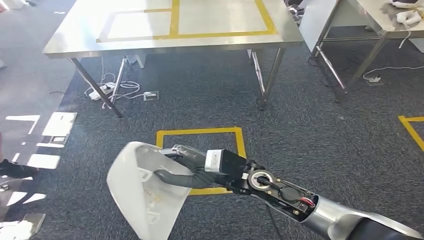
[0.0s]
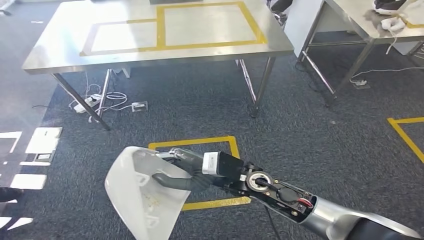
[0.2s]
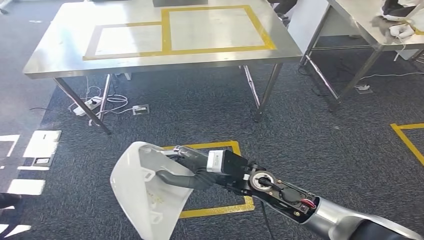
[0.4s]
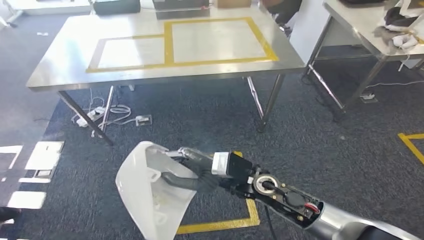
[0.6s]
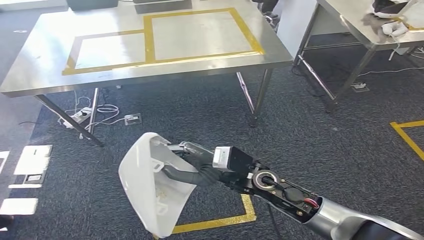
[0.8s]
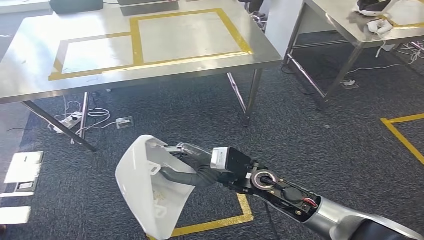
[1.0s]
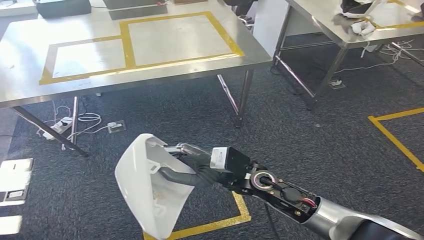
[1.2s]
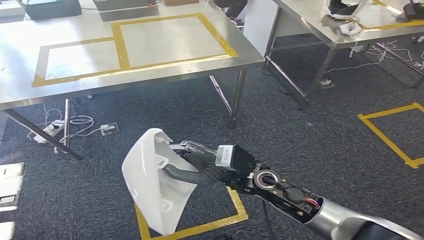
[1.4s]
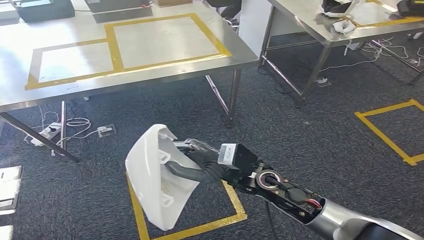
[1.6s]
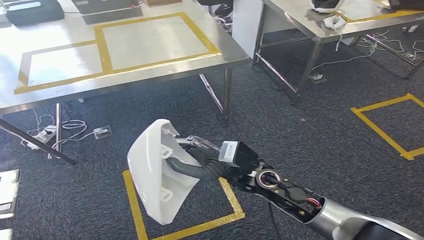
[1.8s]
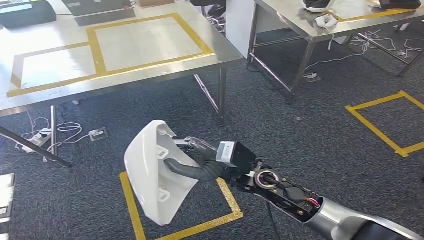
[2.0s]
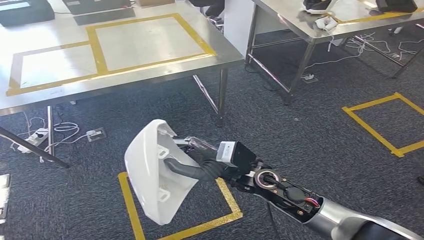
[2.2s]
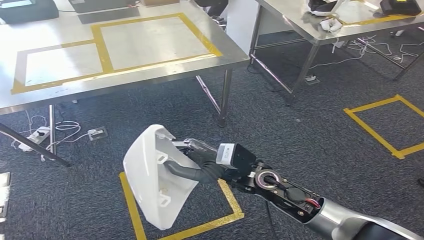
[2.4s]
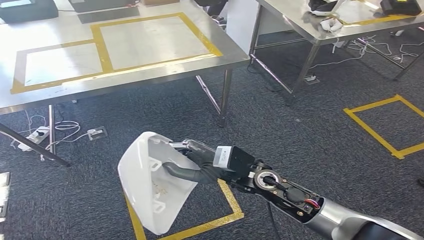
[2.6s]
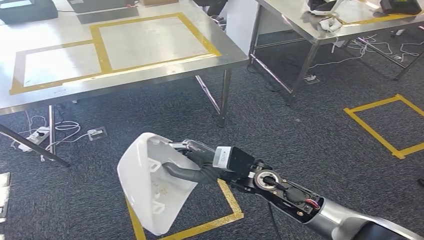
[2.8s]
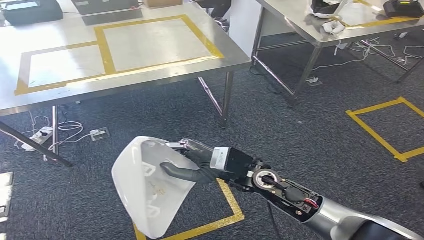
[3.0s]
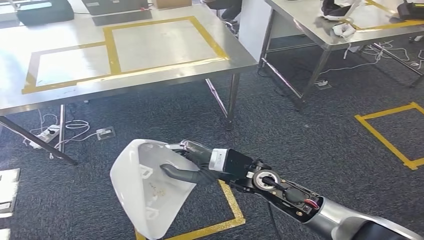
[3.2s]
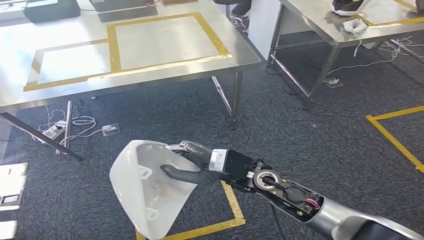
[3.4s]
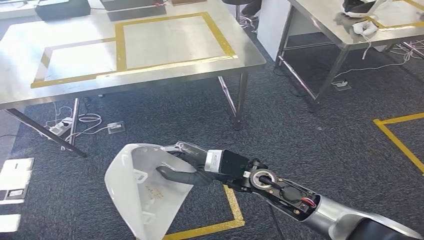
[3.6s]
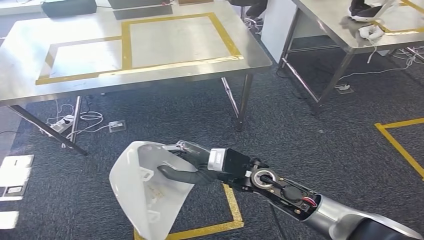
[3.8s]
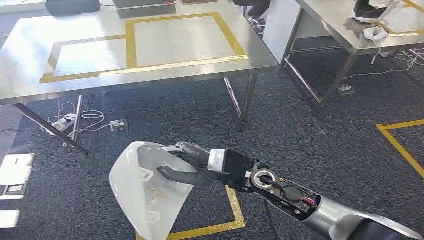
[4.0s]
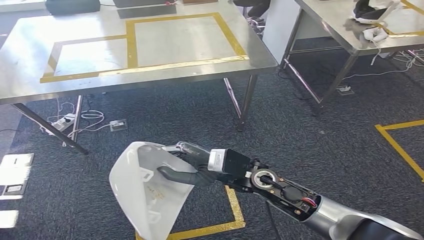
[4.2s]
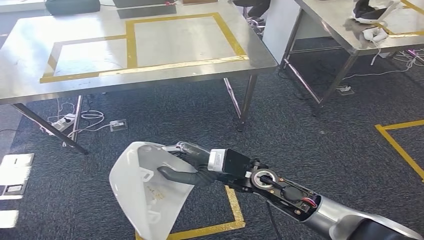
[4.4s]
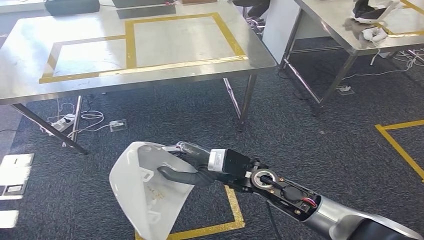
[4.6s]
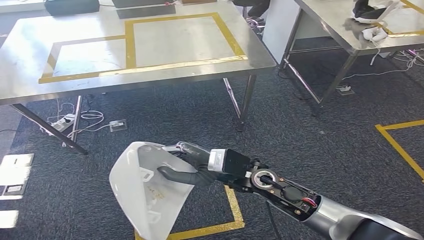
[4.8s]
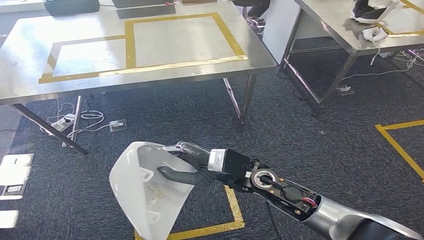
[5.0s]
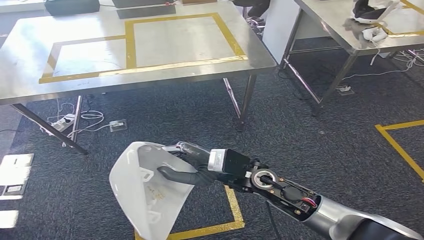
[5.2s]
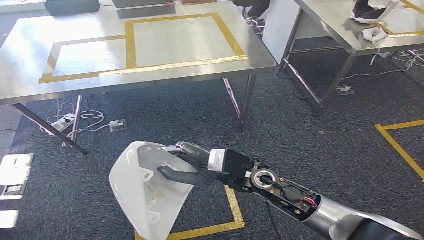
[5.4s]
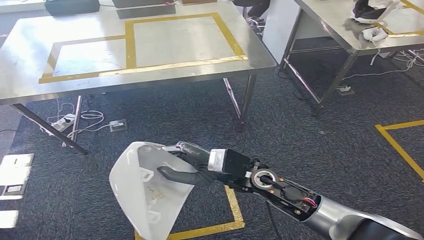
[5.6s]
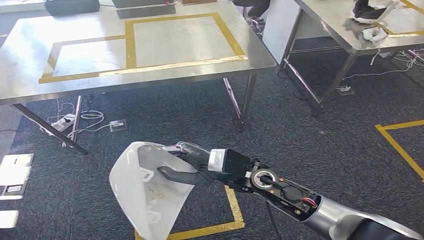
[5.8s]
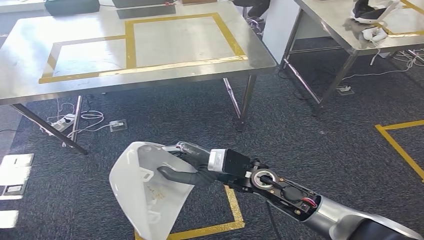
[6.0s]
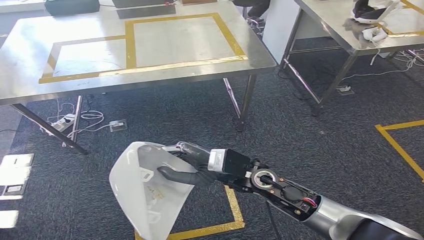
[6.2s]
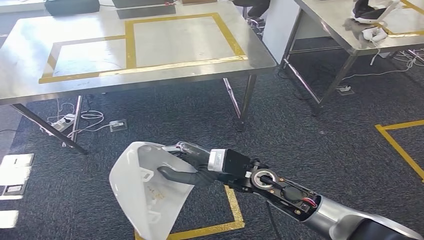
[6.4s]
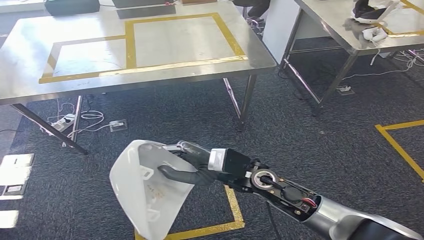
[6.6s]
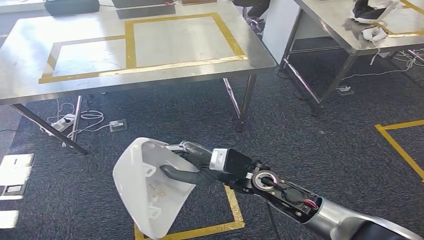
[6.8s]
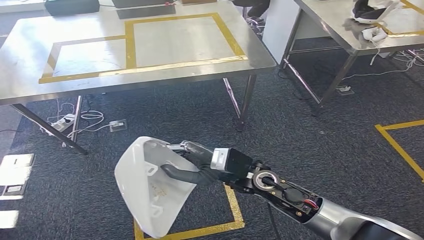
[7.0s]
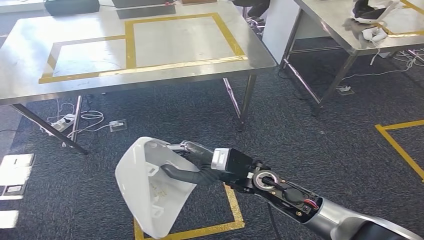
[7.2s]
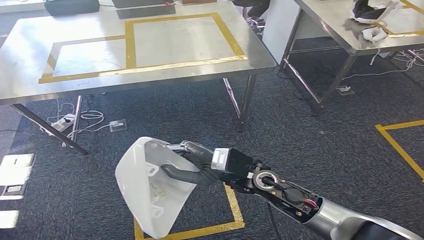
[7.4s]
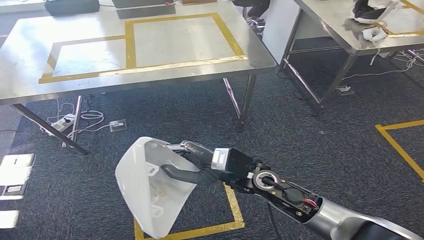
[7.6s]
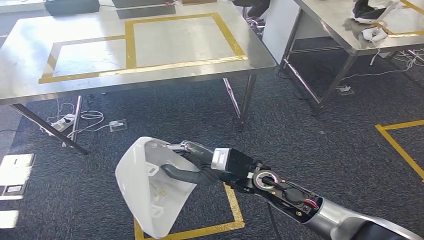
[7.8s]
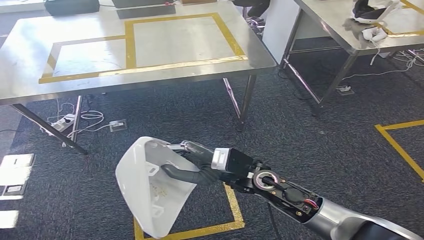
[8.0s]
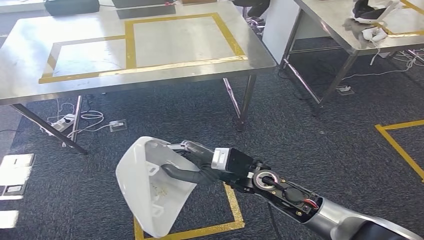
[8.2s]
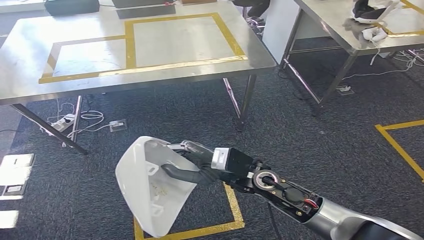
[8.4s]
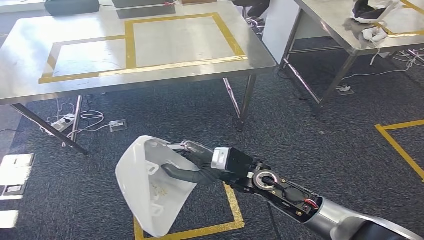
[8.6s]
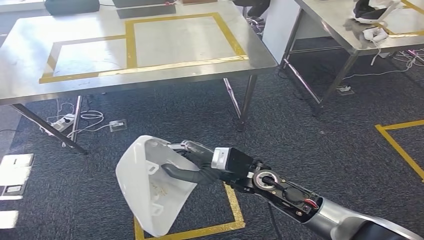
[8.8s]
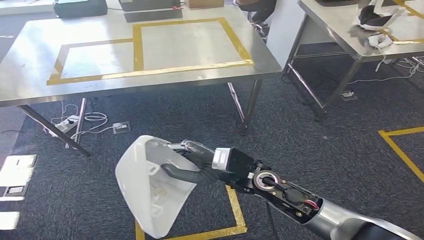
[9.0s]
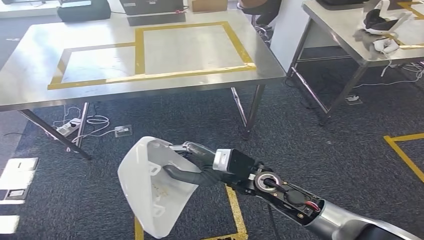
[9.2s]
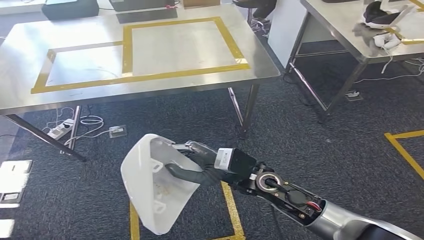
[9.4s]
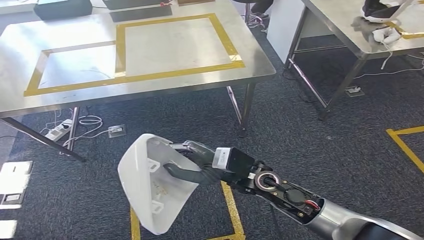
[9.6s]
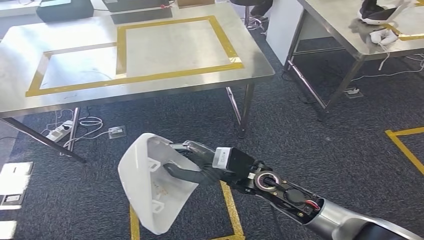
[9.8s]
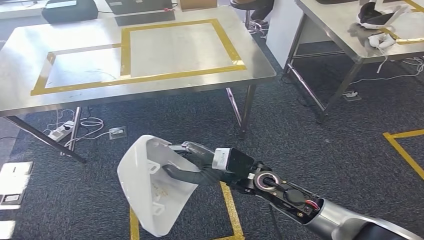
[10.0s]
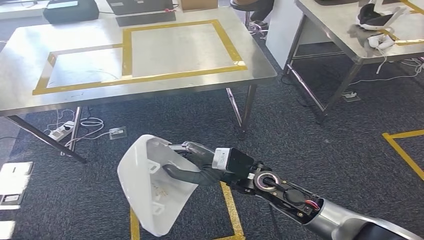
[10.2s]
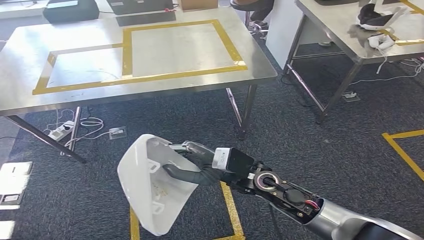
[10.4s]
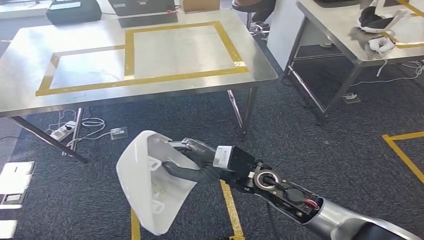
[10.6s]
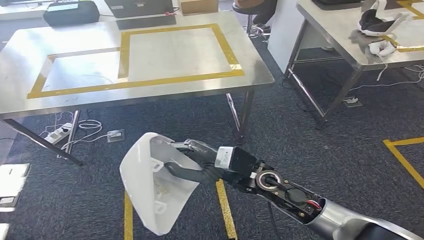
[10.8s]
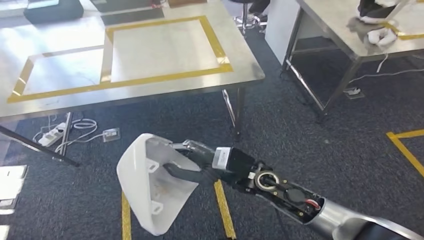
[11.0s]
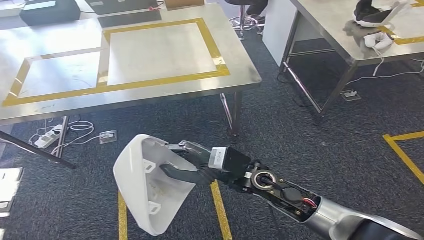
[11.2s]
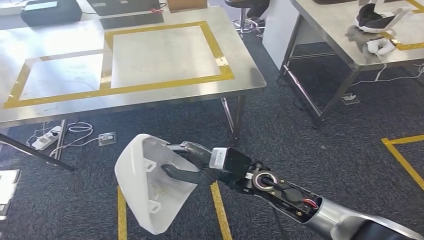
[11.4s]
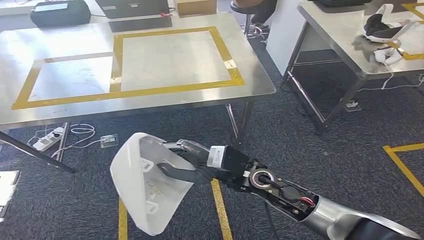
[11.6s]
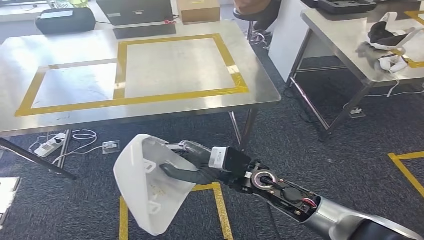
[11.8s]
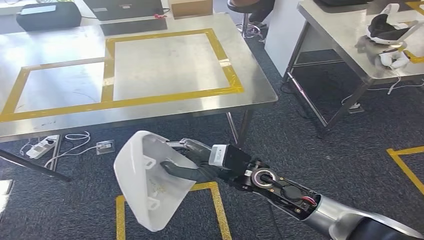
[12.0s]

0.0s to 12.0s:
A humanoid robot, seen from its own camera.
4.4s to 10.4s: The two hands keep their place.

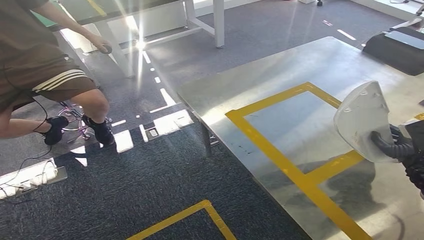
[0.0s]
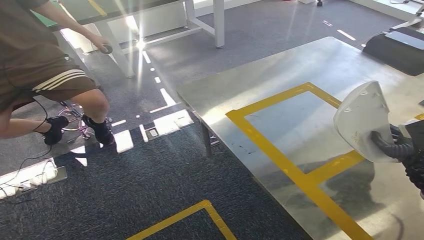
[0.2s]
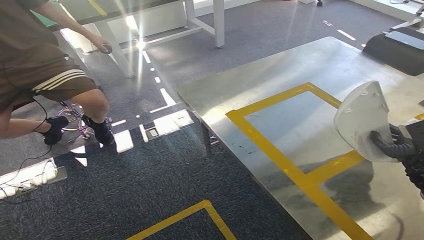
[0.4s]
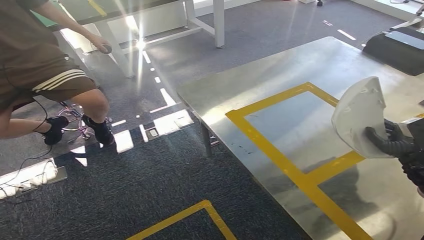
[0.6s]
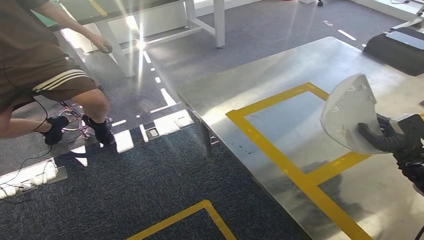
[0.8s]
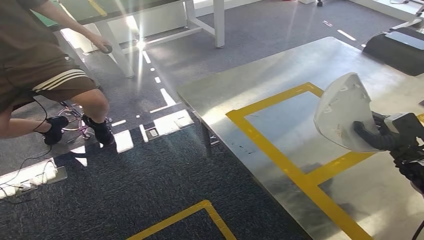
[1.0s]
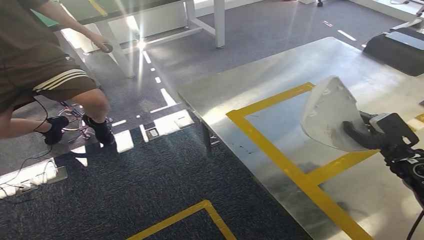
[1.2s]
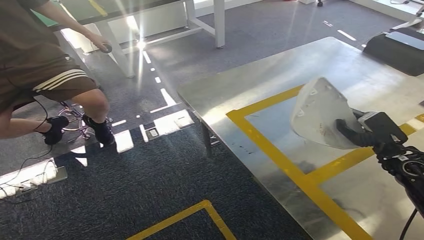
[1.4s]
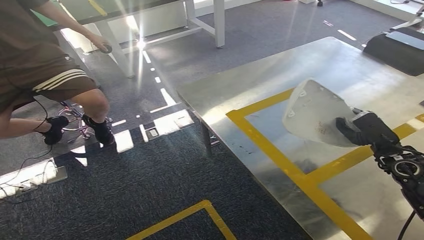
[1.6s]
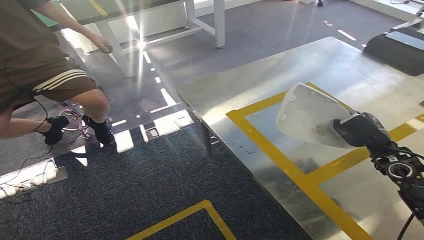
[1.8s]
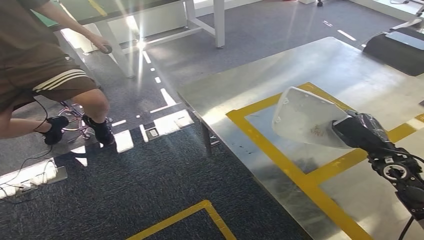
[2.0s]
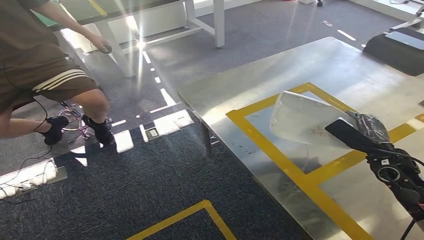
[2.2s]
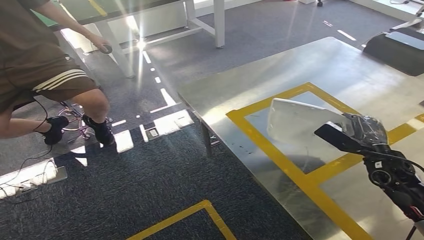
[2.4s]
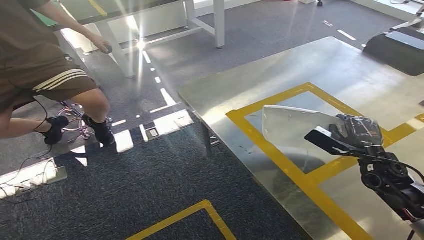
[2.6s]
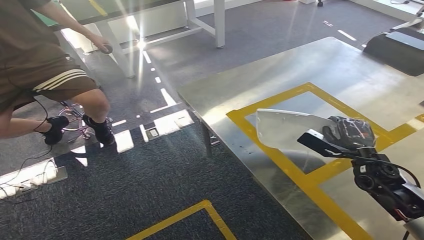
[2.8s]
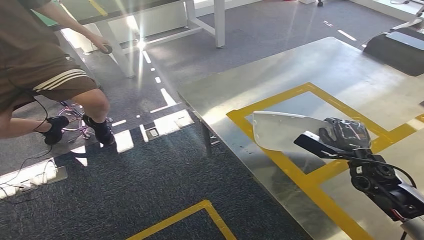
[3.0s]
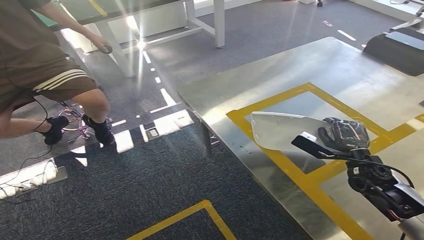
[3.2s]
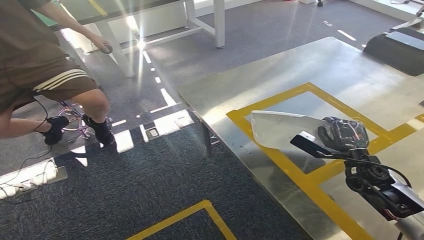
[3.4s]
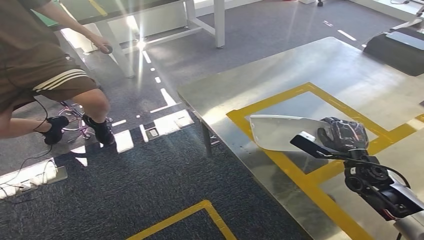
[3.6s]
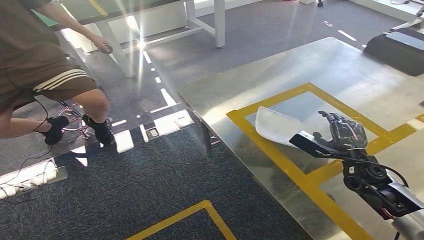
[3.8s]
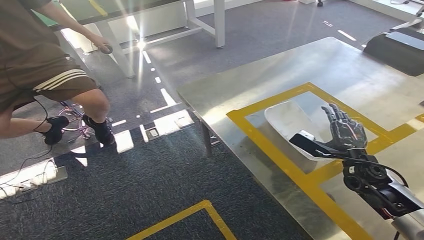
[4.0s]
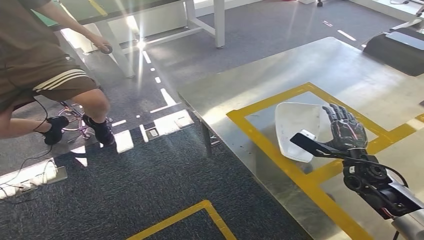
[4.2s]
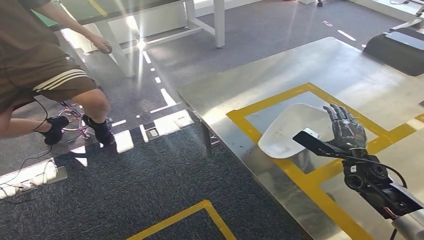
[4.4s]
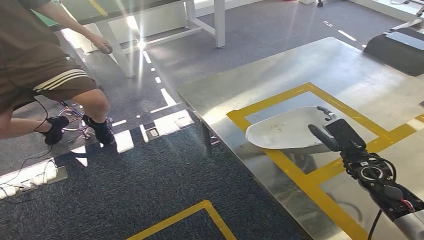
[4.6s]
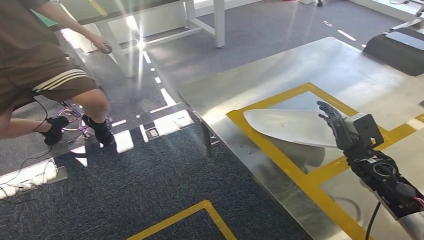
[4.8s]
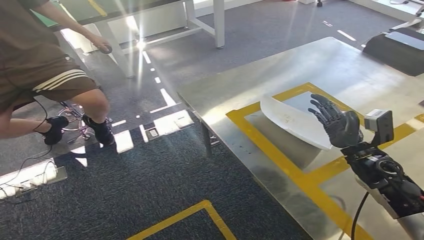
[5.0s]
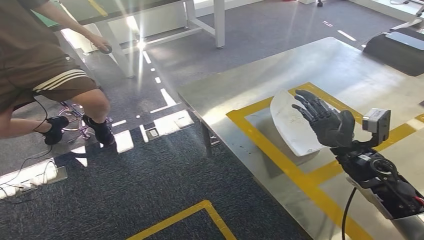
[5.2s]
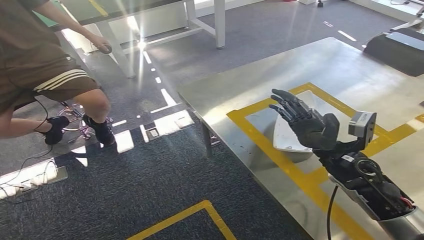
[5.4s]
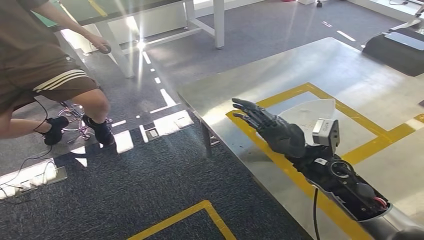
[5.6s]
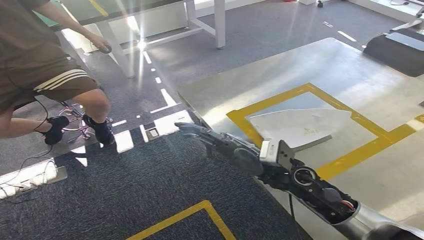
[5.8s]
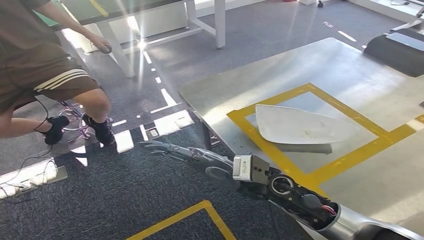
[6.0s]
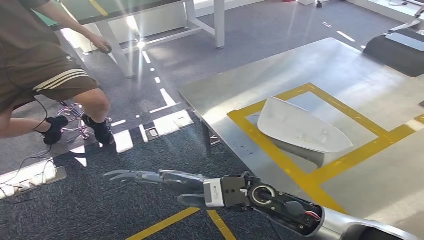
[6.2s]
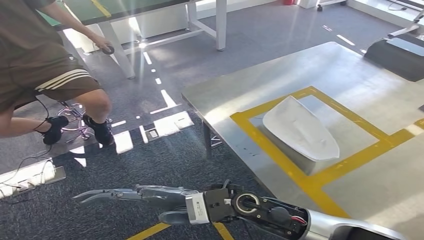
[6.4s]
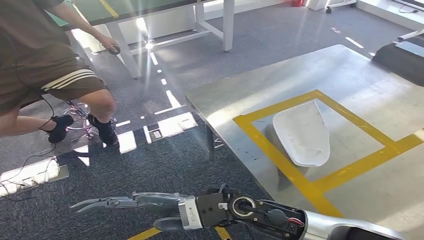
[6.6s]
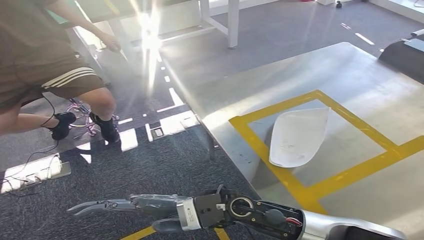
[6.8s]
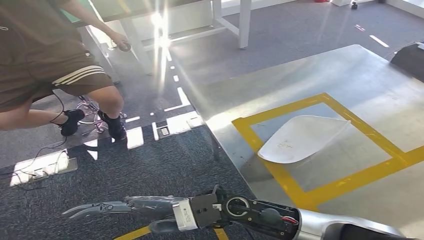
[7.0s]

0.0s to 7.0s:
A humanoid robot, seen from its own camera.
0.0s to 1.4s: The right hand travels to the left and forward by some 10 cm.
1.4s to 2.8s: The right hand travels to the left by roughly 5 cm.
2.8s to 4.2s: The hands make only small movements.
4.2s to 5.6s: The right hand shifts approximately 15 cm to the left and upward.
